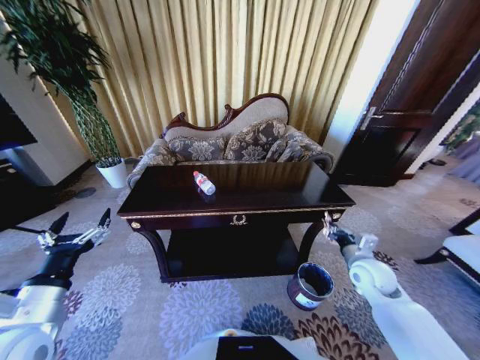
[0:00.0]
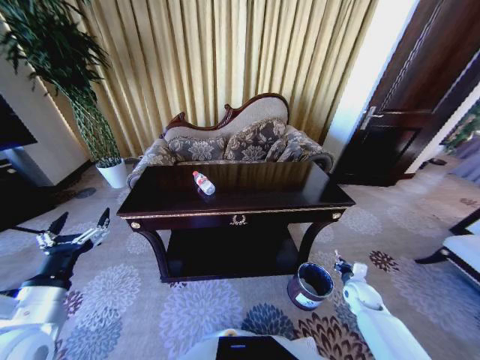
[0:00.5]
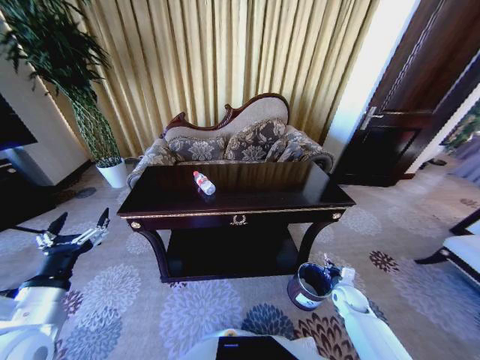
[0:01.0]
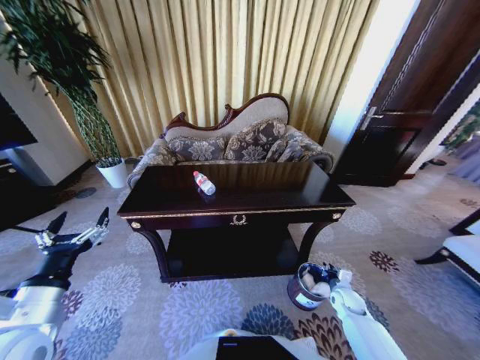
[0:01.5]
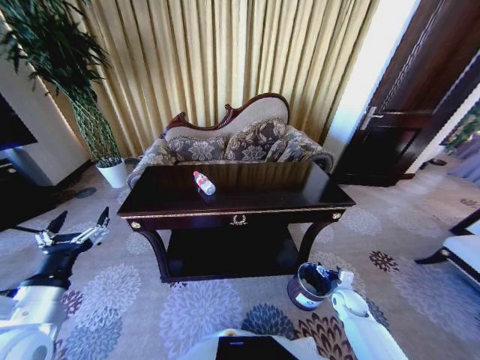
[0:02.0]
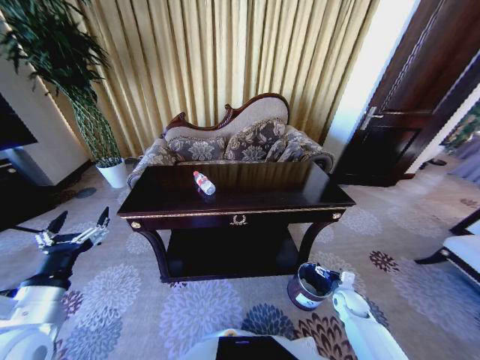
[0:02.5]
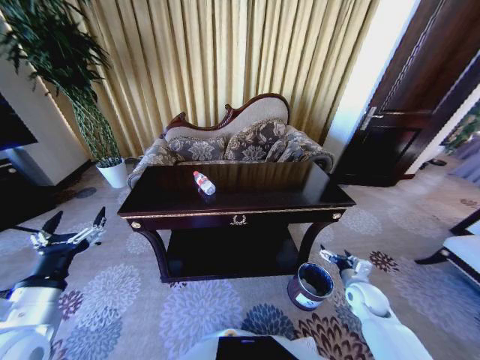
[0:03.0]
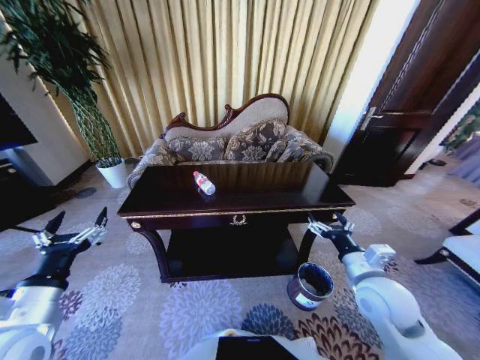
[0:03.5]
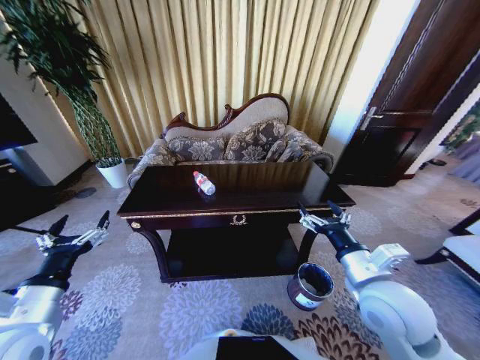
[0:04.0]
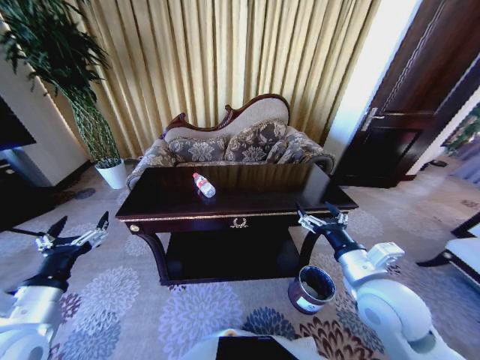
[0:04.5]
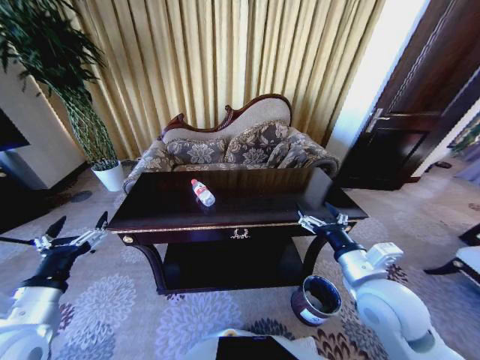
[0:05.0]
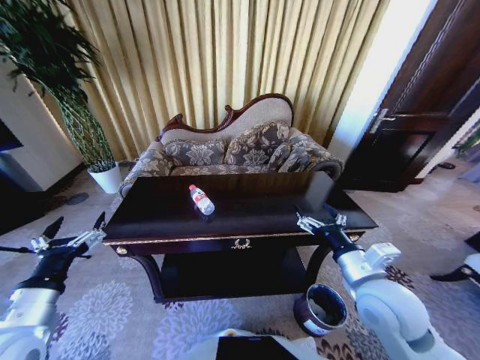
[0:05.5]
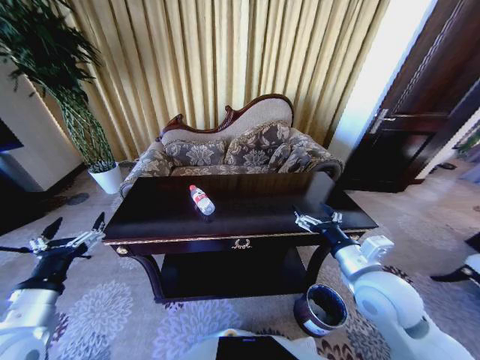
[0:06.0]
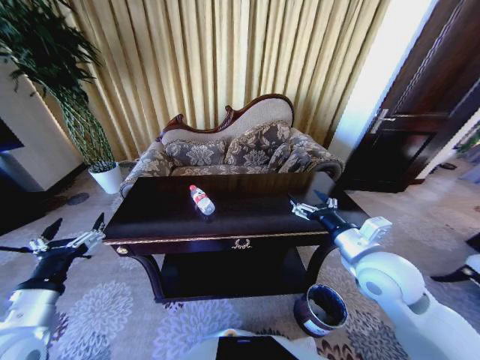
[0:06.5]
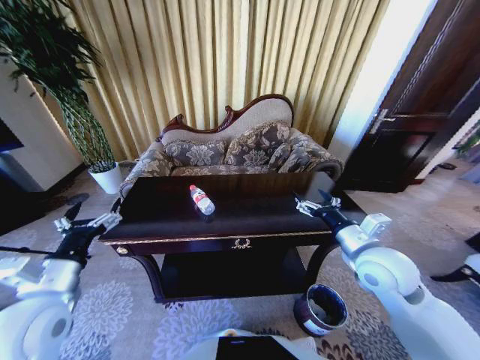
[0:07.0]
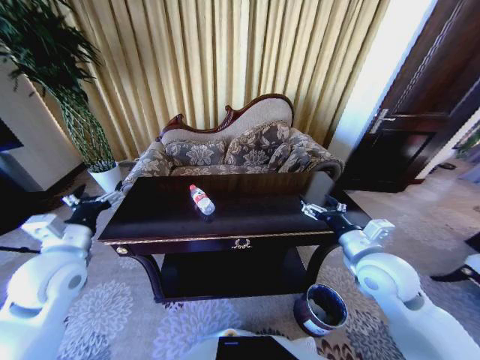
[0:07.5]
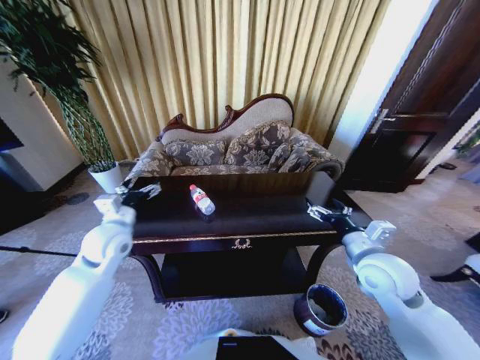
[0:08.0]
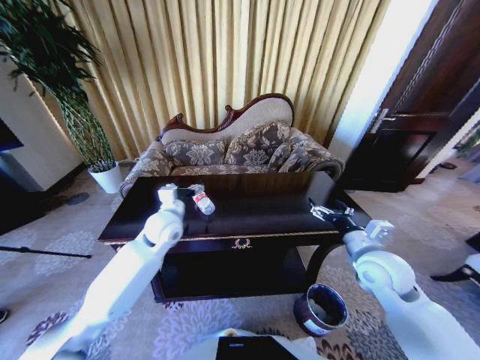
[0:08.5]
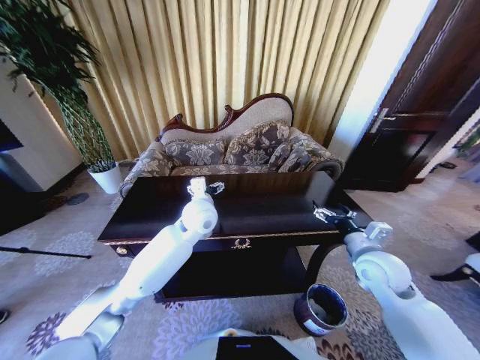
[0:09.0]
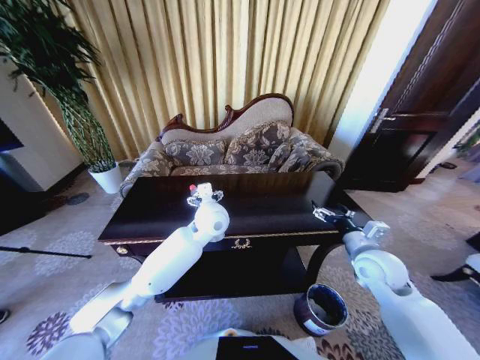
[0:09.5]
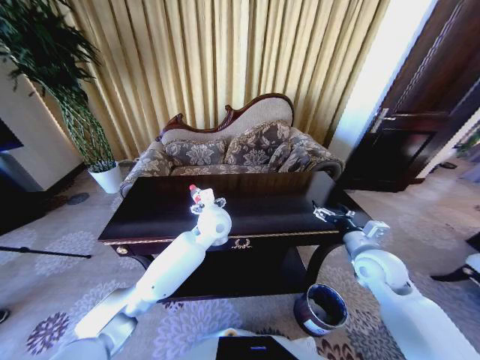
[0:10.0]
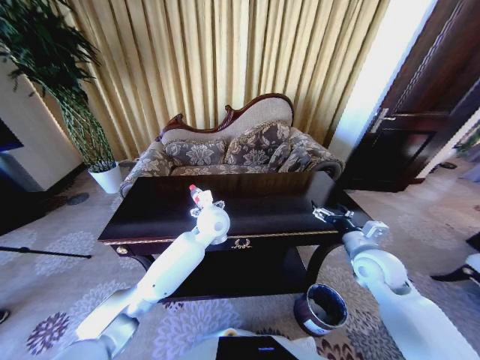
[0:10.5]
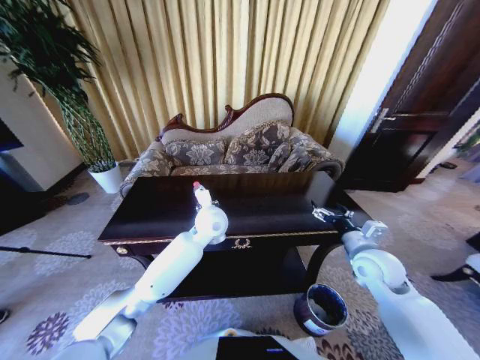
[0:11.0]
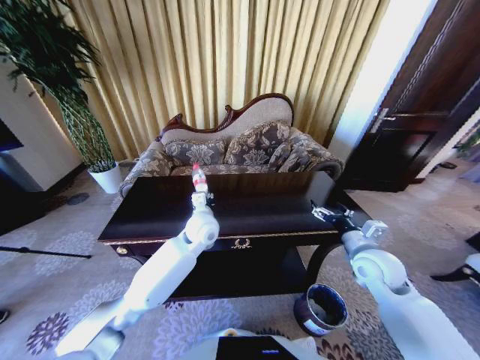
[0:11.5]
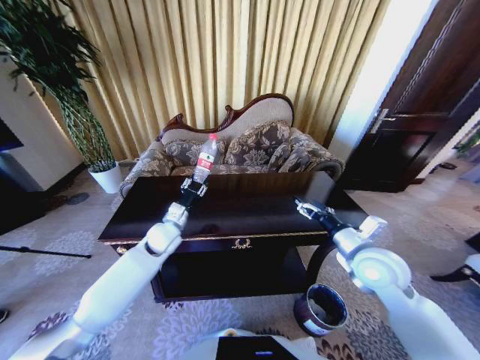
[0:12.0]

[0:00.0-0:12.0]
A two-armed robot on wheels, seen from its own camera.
Task of the whole recording: Move to the front of the table and place the trash on the table into the trash bin.
0:00.0 to 0:02.0: The right gripper shifts approximately 20 cm downward, and opens up.
0:02.0 to 0:04.0: The right gripper is displaced upward and to the left by approximately 35 cm.
0:06.0 to 0:08.0: The left gripper moves forward, approximately 20 cm. Meanwhile the right gripper moves approximately 5 cm.
0:08.0 to 0:10.0: The left gripper is displaced to the right by about 25 cm. Meanwhile the right gripper shifts by some 5 cm.
0:10.0 to 0:12.0: The left gripper is displaced to the left and downward by roughly 15 cm, and closes its fingers. The right gripper shifts by roughly 5 cm.

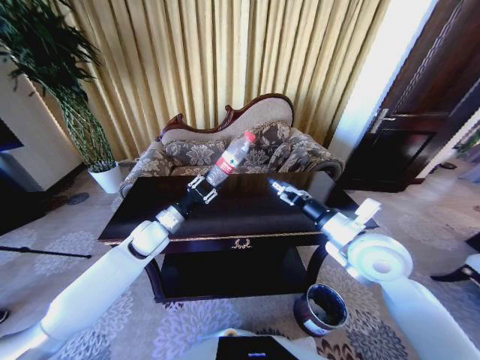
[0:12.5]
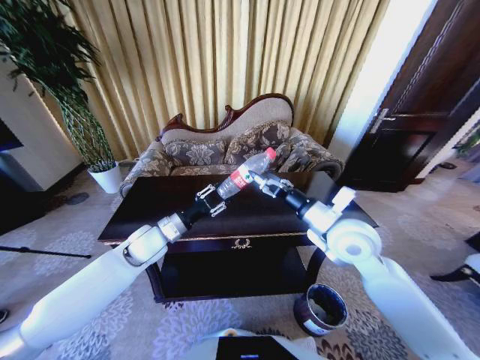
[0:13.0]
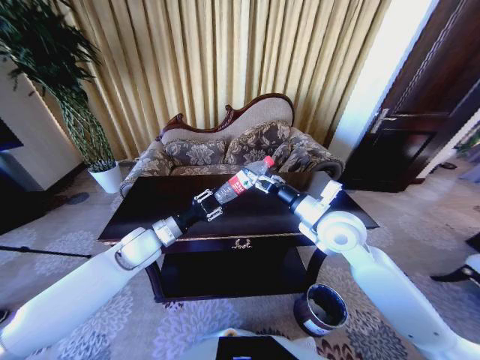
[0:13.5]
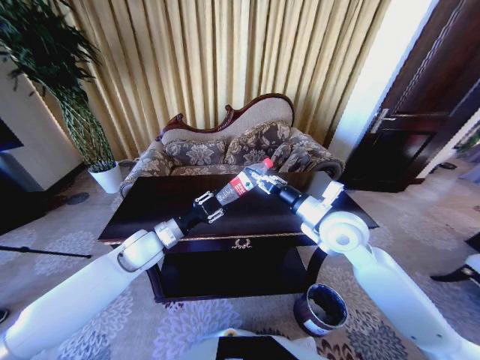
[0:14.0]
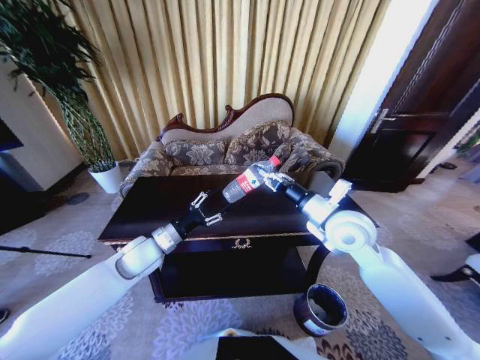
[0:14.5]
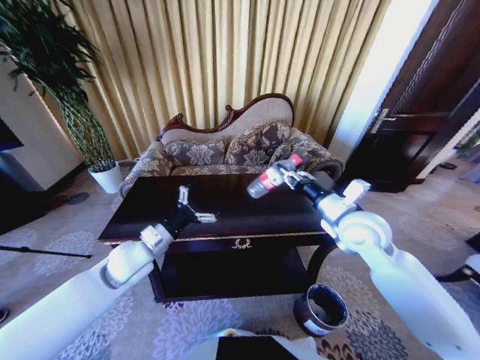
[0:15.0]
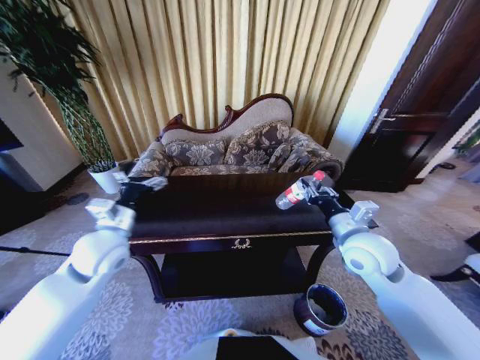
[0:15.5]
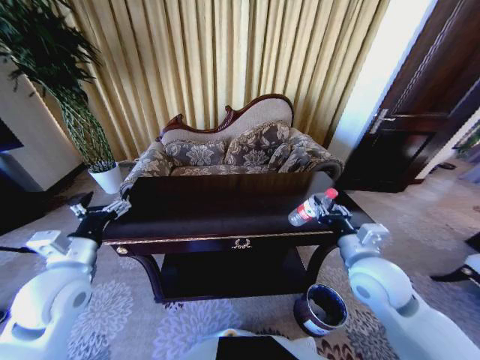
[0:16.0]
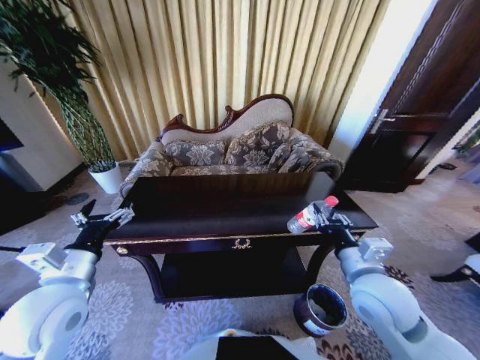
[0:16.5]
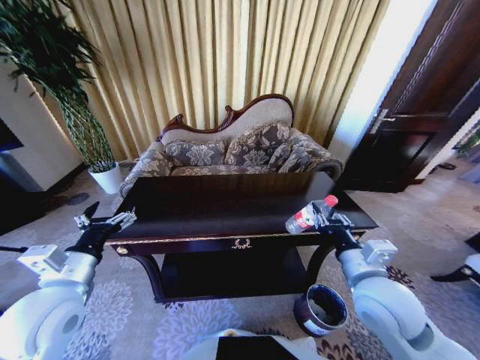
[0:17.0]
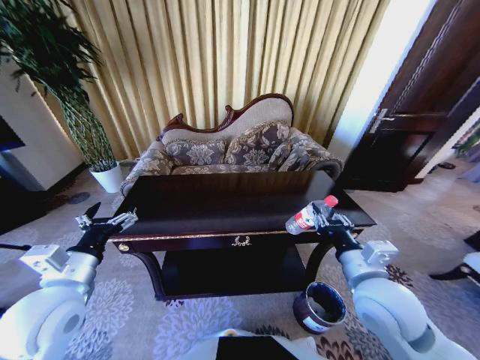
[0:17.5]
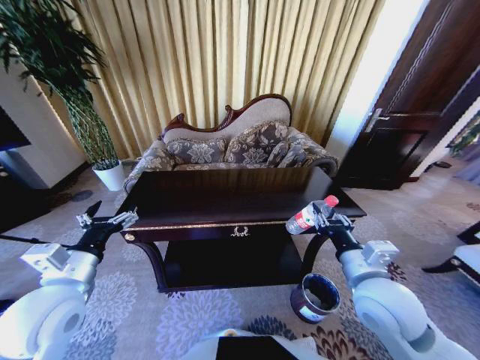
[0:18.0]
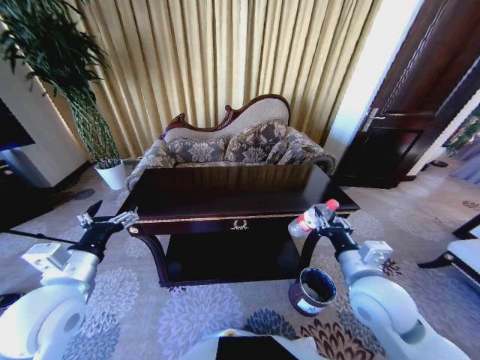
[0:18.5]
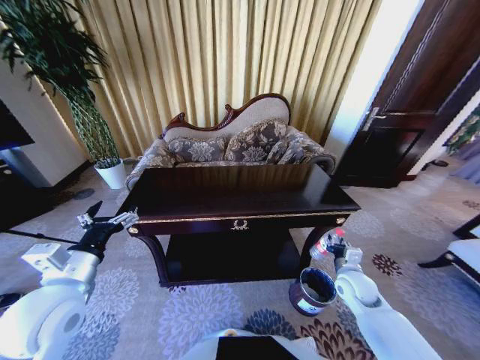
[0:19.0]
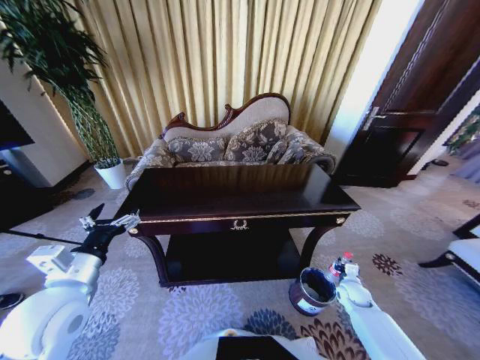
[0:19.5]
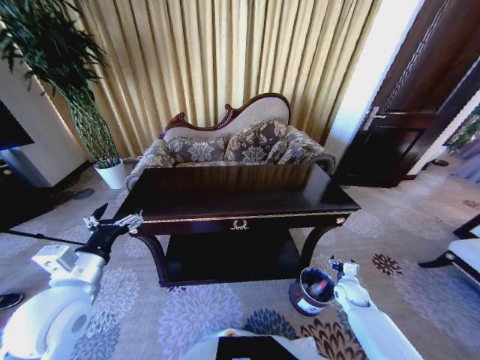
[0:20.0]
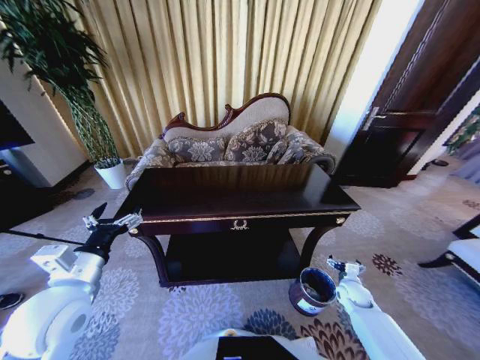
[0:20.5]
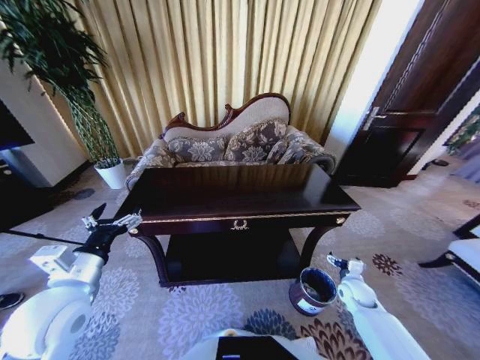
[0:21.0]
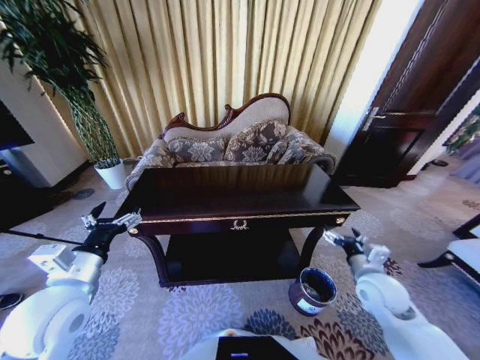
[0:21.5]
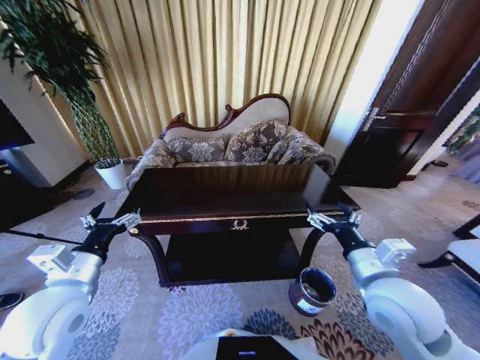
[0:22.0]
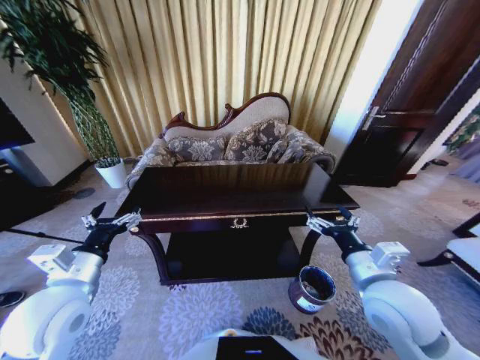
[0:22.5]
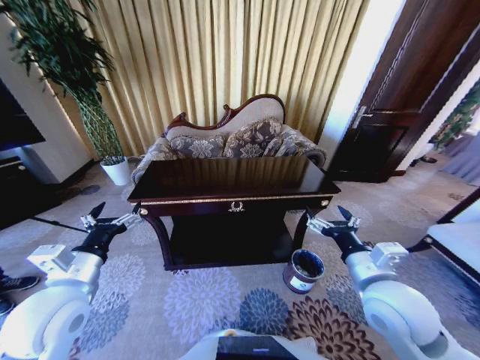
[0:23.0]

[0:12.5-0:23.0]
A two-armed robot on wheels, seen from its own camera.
Task of the whole recording: Move to the front of the table and place the trash on the table into the trash bin.
0:12.5 to 0:14.5: The right gripper travels forward by roughly 5 cm, and closes its fingers, while the left gripper is displaced backward by about 5 cm.
0:14.5 to 0:16.5: The left gripper is displaced backward, upward and to the left by approximately 20 cm, and opens, while the right gripper heads backward and downward, covering some 15 cm.
0:16.5 to 0:19.0: The right gripper moves downward, to the right and forward, some 20 cm.
0:19.0 to 0:21.0: The right gripper travels downward and to the right by some 10 cm, and opens up.
0:21.0 to 0:23.0: The right gripper moves upward and to the left, some 30 cm.
